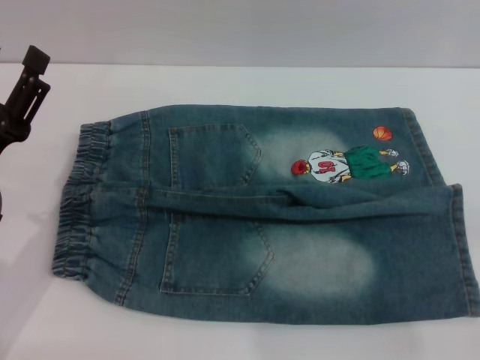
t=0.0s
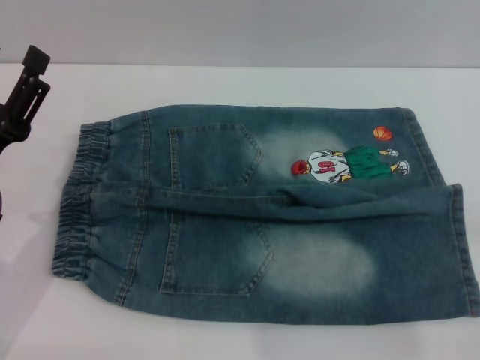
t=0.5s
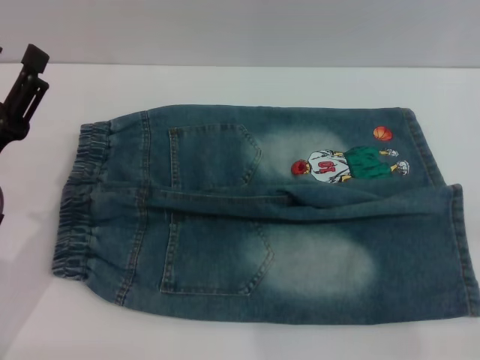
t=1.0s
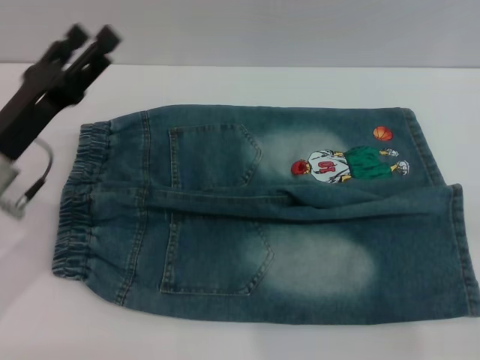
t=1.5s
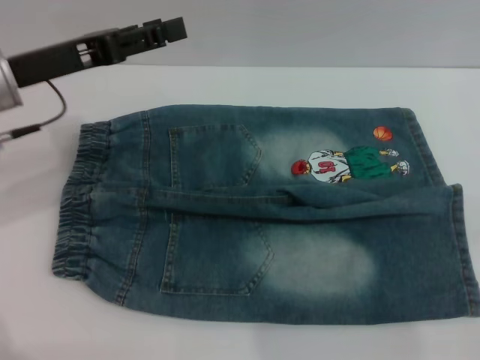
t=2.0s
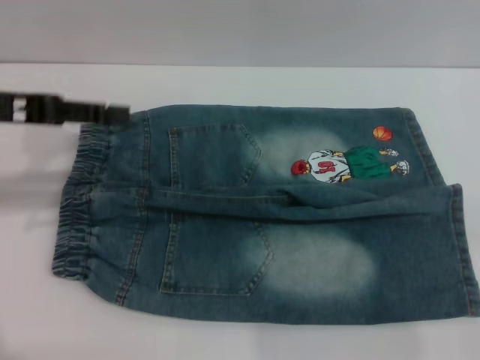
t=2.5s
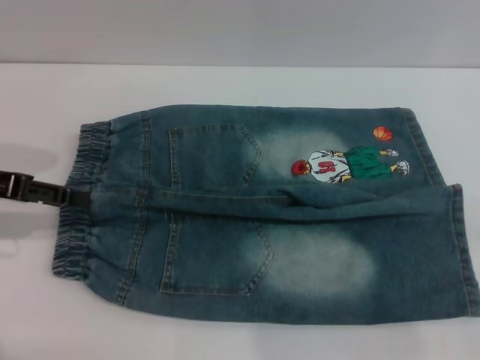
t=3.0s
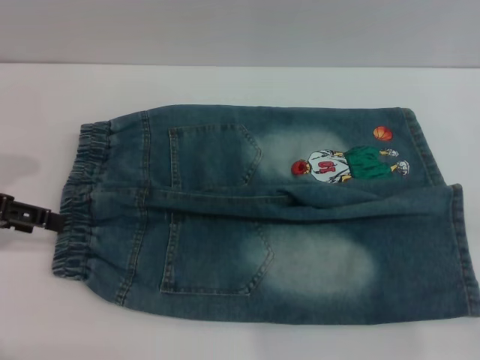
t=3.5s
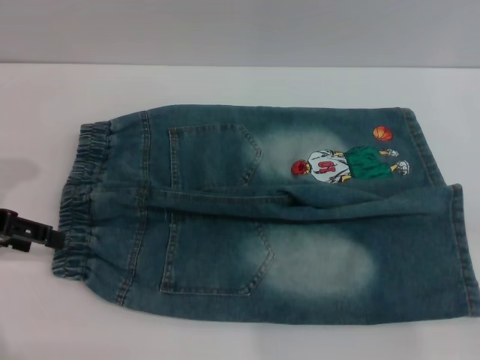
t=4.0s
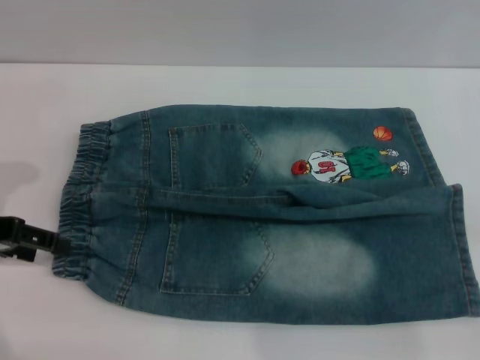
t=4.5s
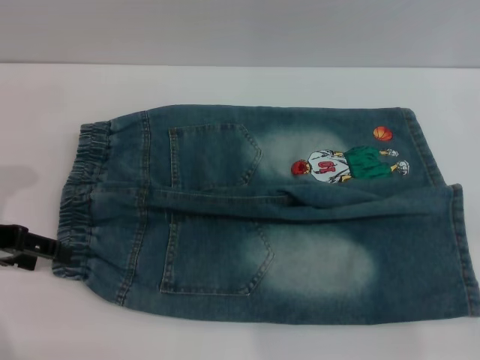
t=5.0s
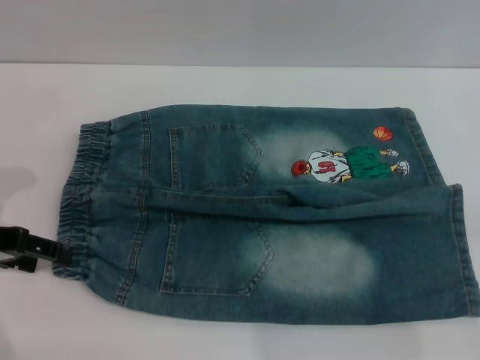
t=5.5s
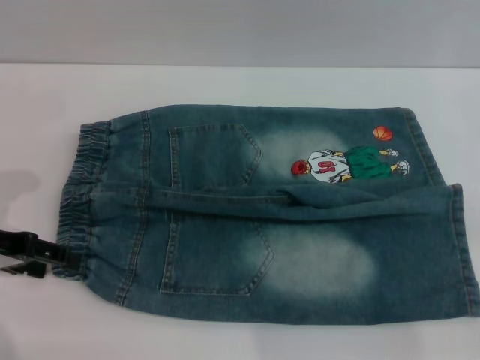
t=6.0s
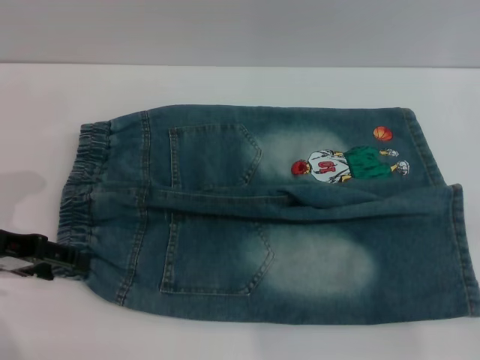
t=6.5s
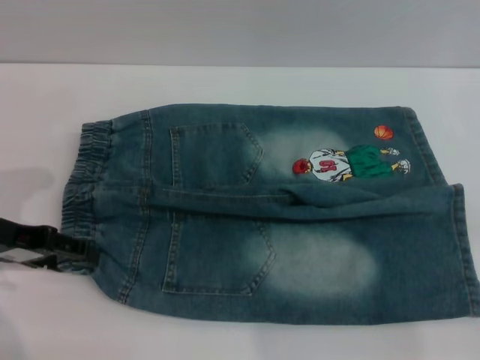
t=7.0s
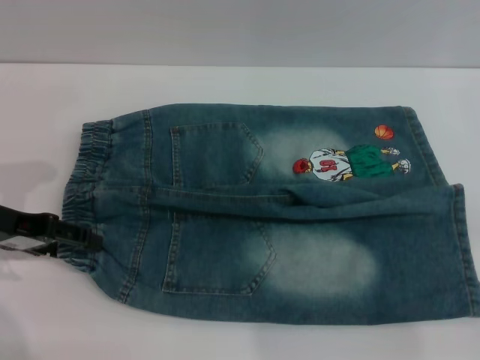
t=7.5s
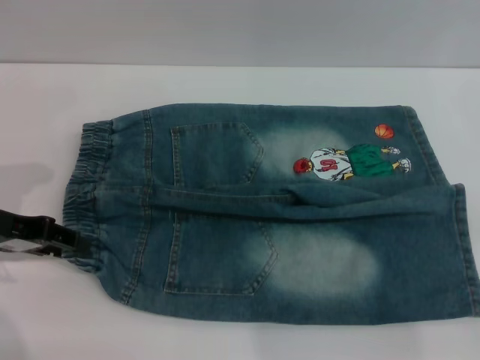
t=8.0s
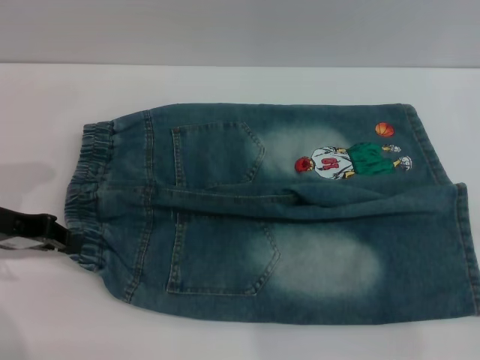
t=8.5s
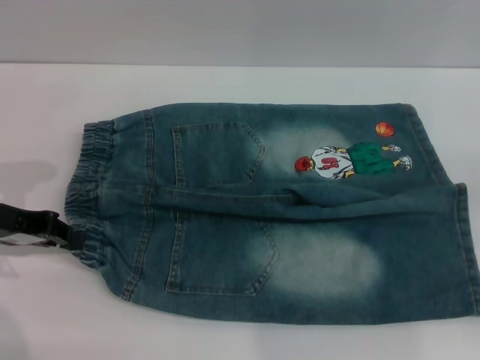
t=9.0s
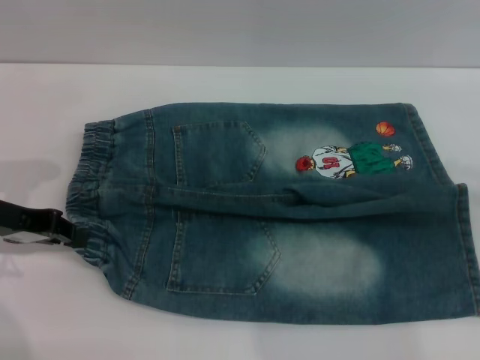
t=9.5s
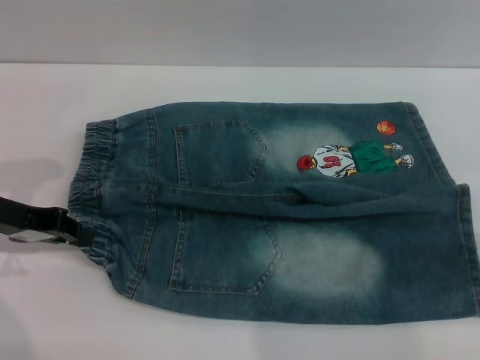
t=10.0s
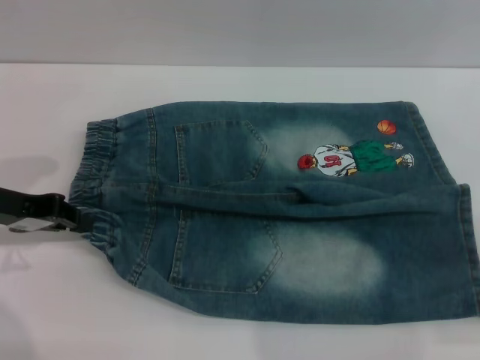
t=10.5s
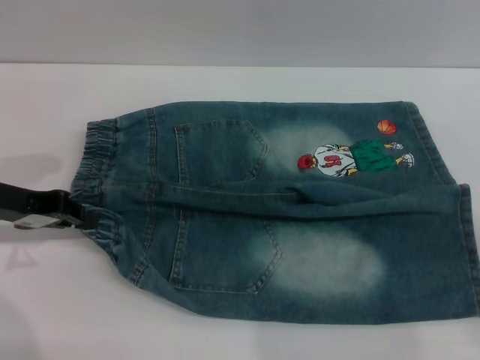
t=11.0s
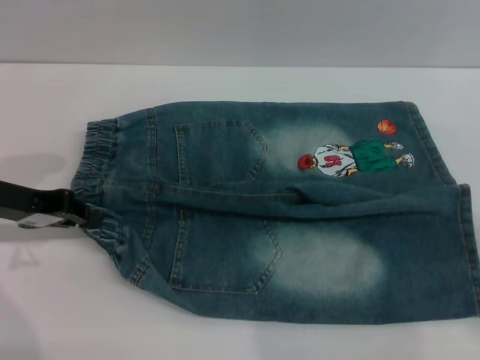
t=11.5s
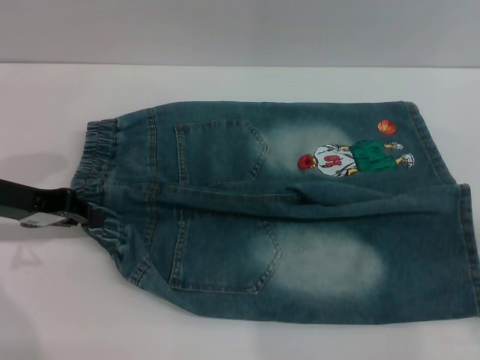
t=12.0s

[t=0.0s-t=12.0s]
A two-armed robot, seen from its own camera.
t=0.0s to t=2.0s: The left gripper moves forward and upward, some 15 cm.
t=2.0s to t=4.0s: The left gripper shifts approximately 10 cm to the left.
t=4.0s to t=8.0s: The grippers stay close to where they were, moving slightly.
t=8.0s to t=10.0s: The right gripper shifts about 15 cm upward and forward. The left gripper closes.

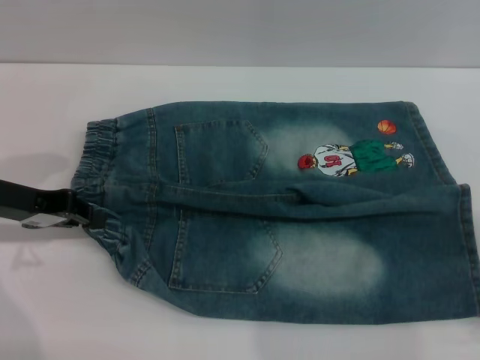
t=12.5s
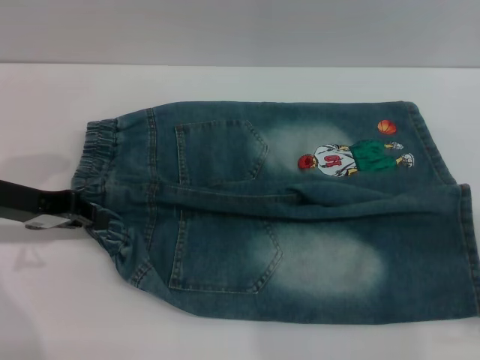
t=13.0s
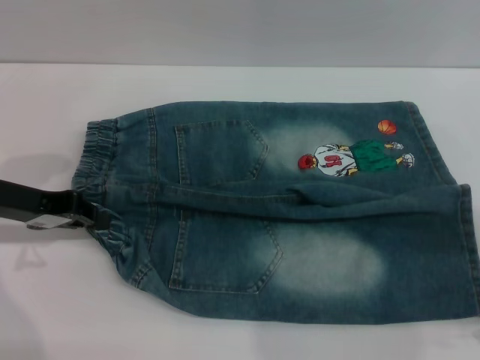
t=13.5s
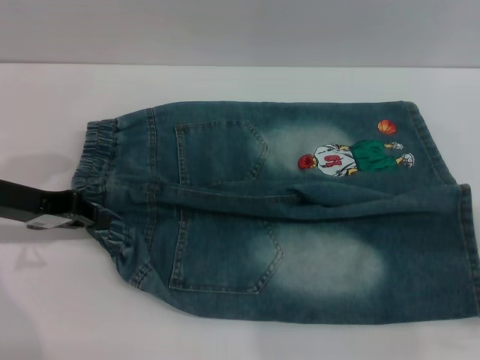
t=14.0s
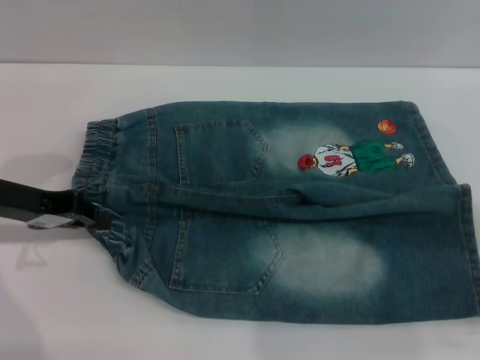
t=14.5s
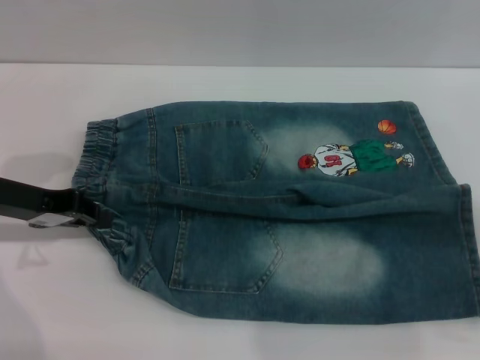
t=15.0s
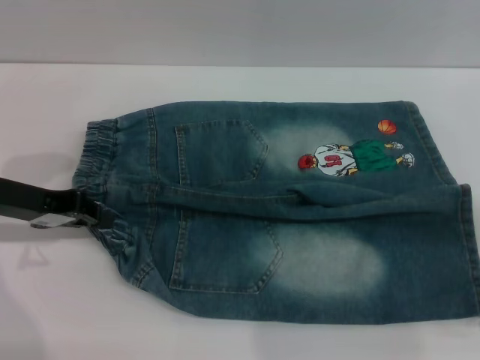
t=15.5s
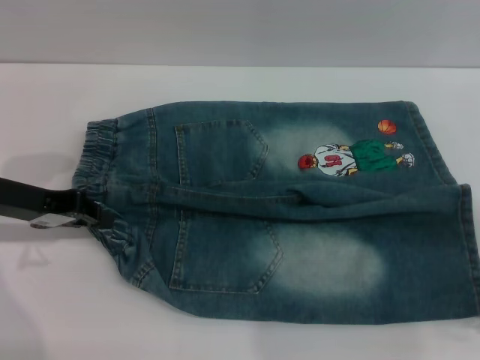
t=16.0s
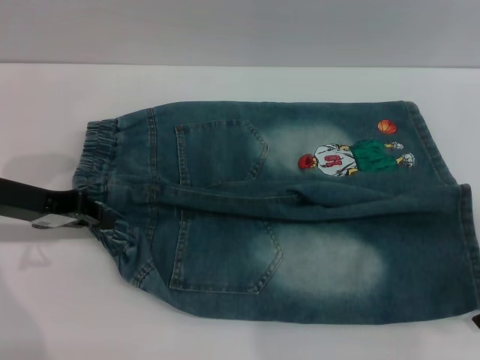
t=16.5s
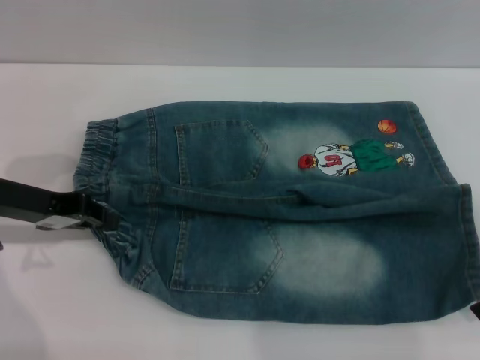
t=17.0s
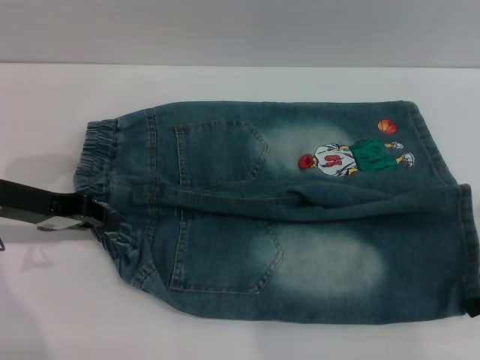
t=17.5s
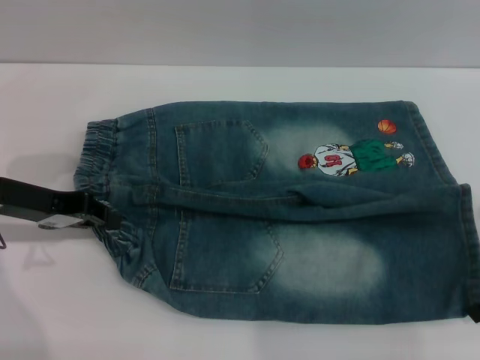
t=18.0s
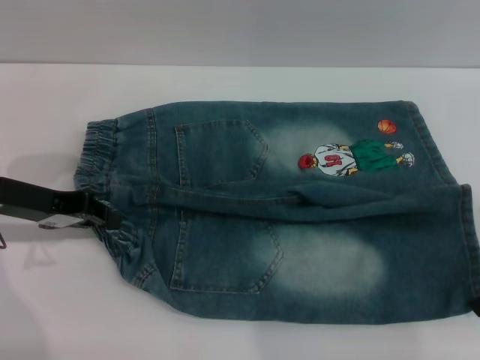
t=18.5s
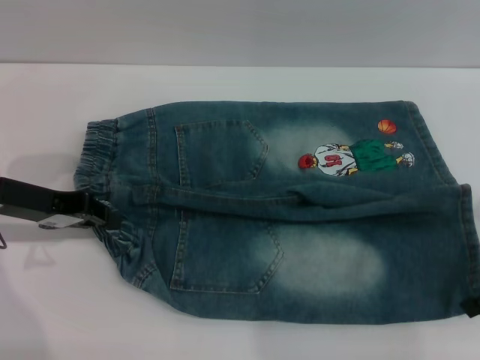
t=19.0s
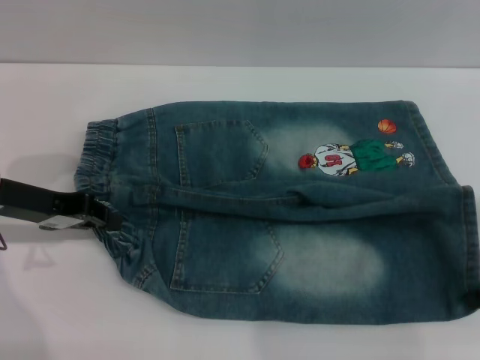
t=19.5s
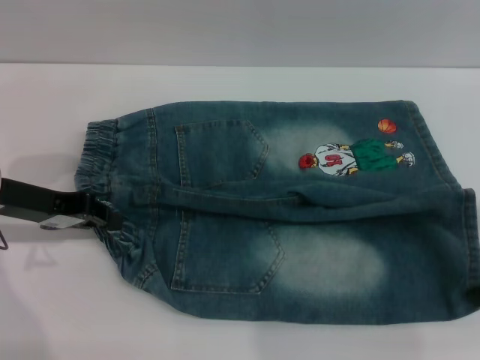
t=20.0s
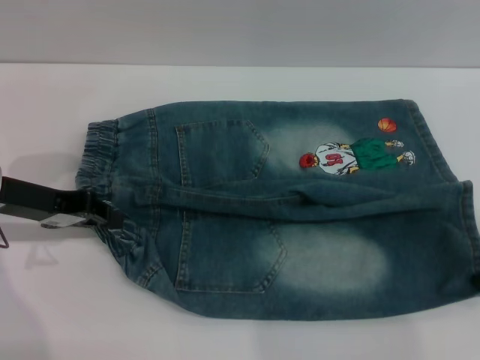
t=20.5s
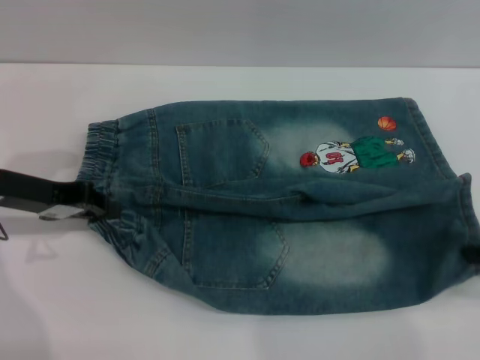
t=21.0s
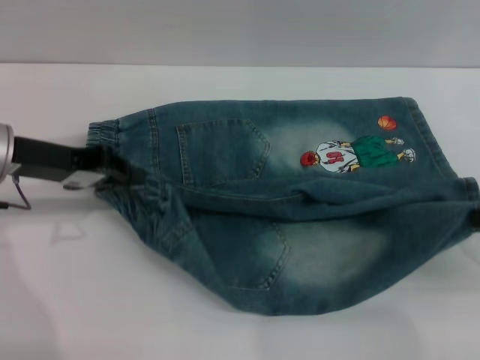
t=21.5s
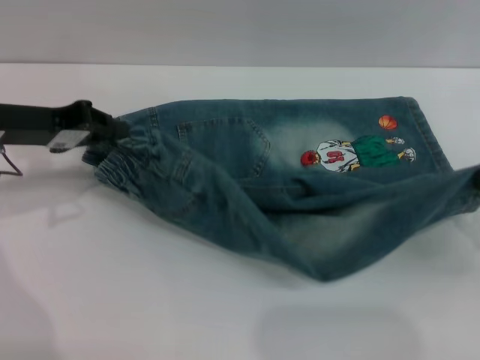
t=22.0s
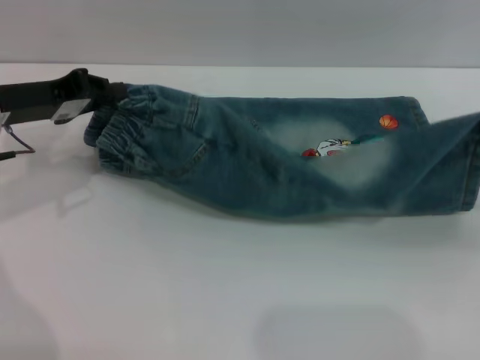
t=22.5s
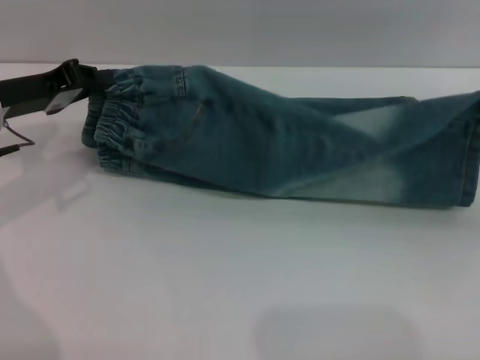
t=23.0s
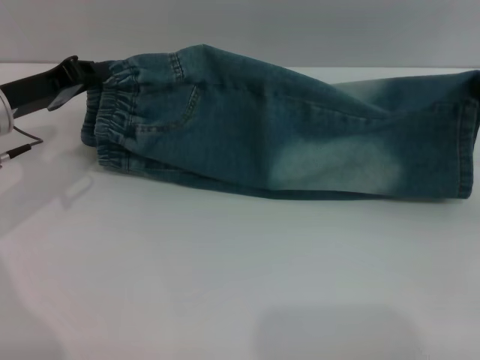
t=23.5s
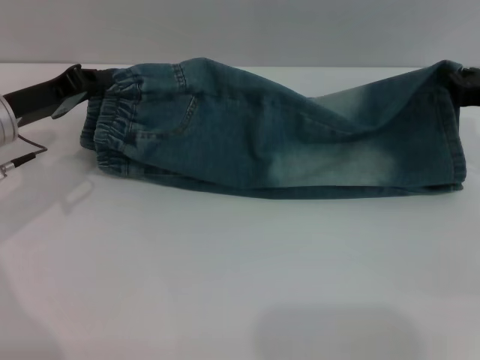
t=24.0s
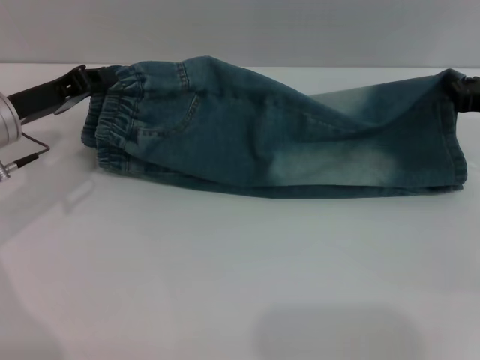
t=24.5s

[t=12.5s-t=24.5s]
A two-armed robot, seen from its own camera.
t=18.5s to t=20.5s: The right gripper closes.
t=22.5s to t=24.5s: The right gripper shifts some 10 cm forward and to the left.

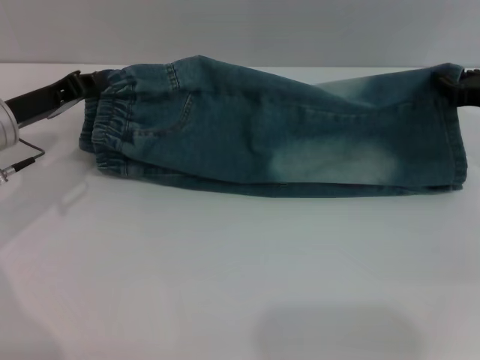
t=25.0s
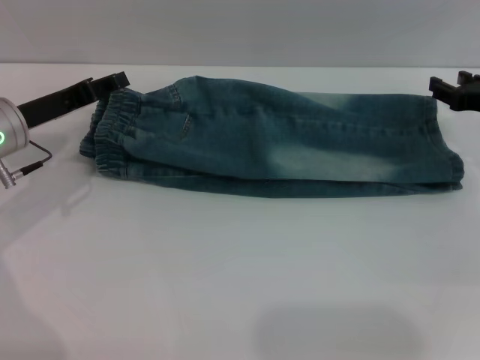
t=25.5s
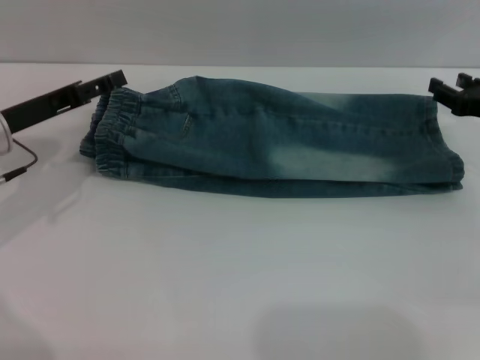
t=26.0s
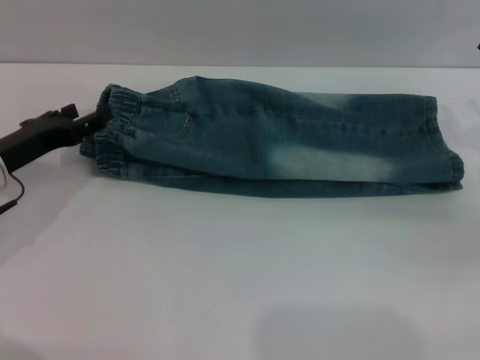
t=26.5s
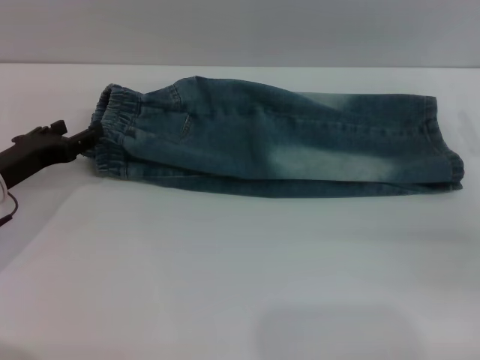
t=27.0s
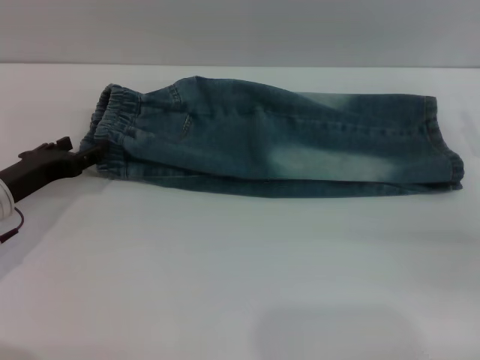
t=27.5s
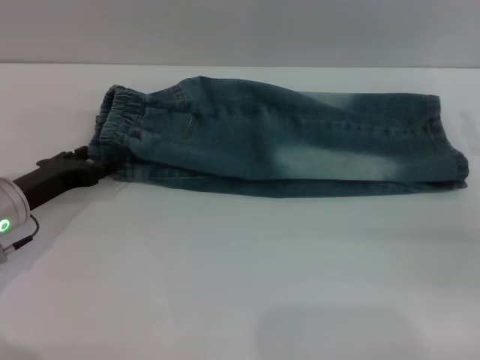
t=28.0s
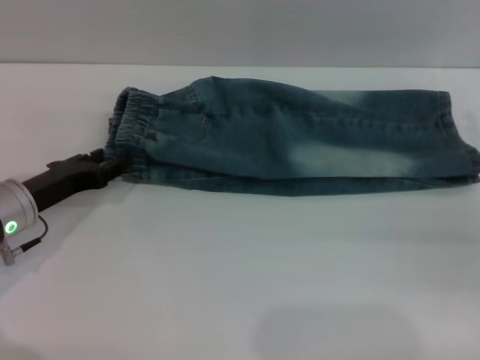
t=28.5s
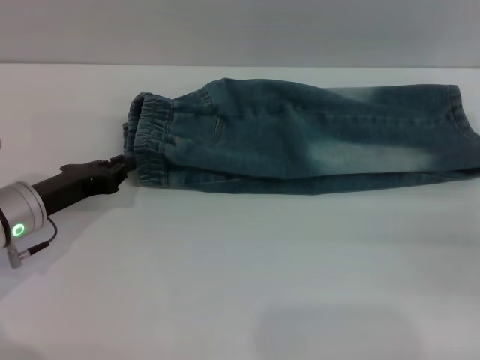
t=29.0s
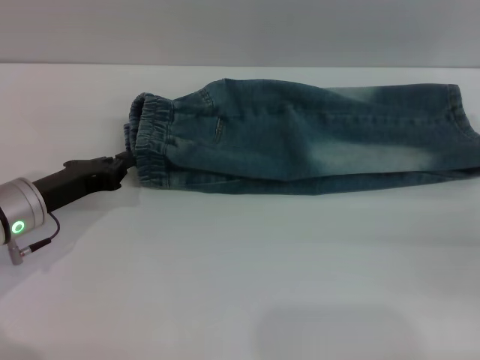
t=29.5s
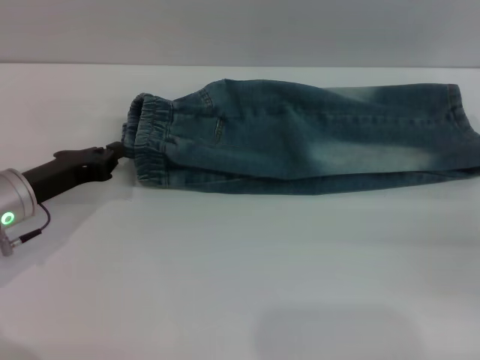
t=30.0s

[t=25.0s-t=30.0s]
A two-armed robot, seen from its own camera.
t=25.0s to t=27.5s: The right gripper moves backward, roughly 10 cm, and opens up; the left gripper travels downward by some 5 cm, and opens.
t=27.5s to t=30.0s: The left gripper closes its fingers.
